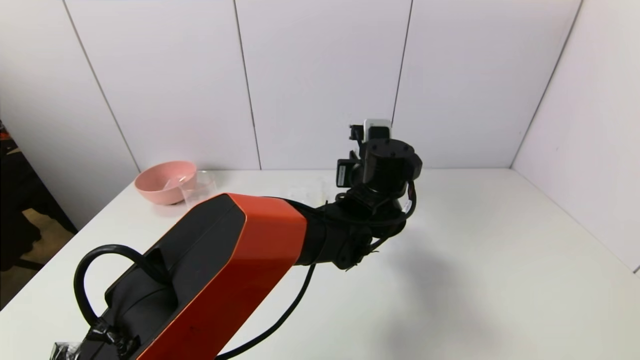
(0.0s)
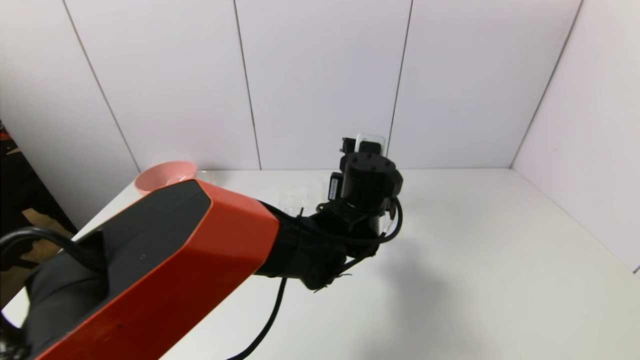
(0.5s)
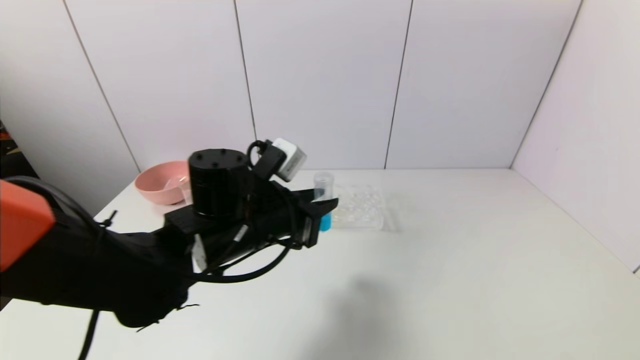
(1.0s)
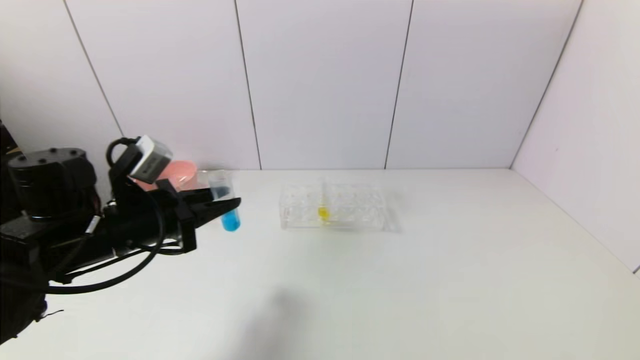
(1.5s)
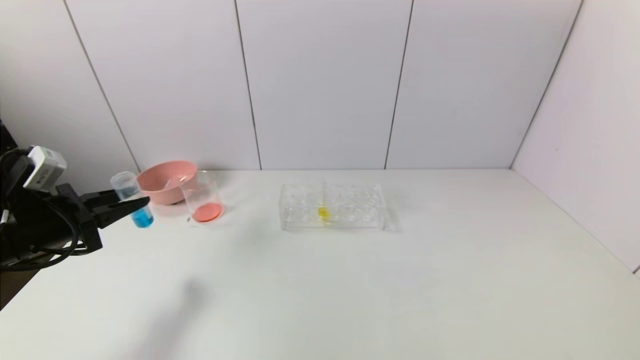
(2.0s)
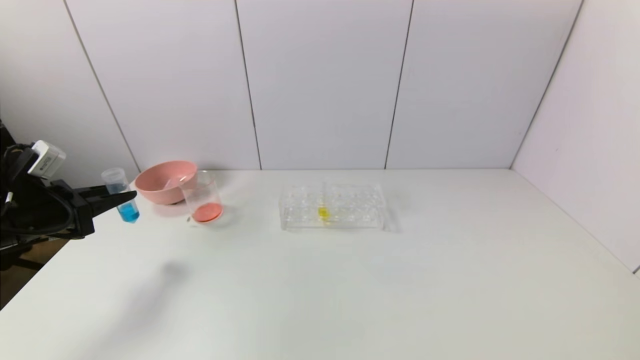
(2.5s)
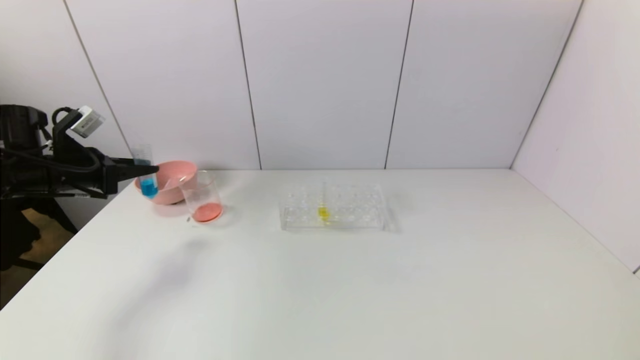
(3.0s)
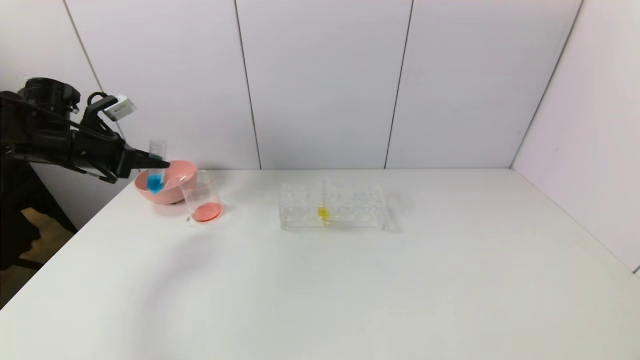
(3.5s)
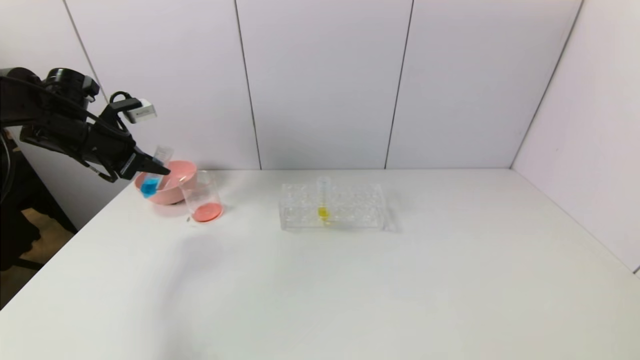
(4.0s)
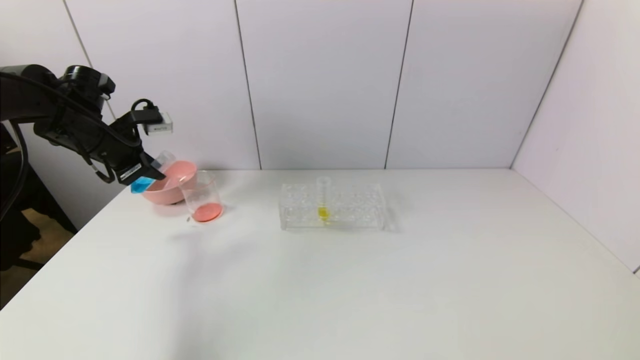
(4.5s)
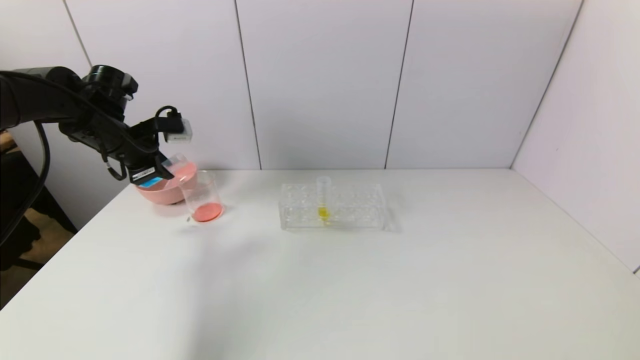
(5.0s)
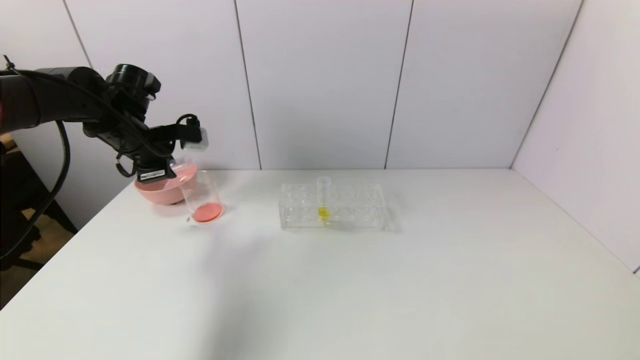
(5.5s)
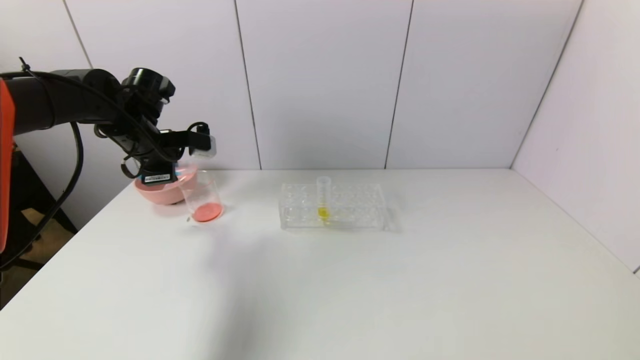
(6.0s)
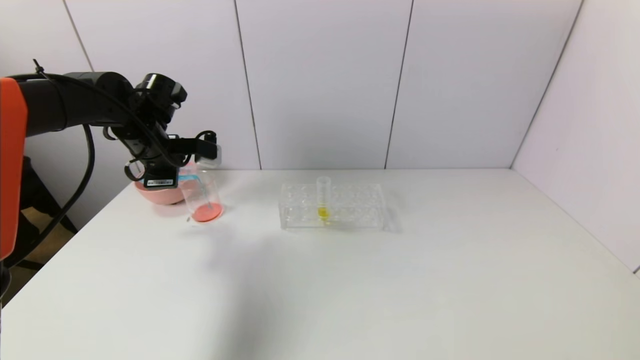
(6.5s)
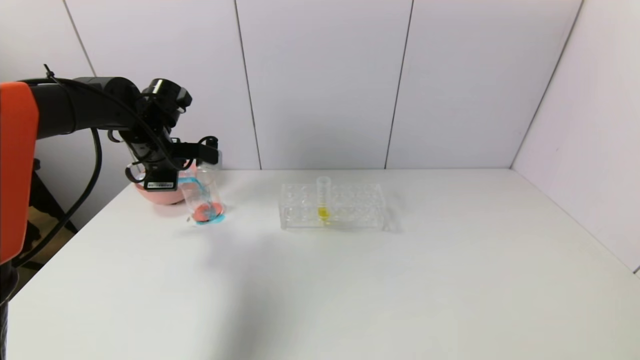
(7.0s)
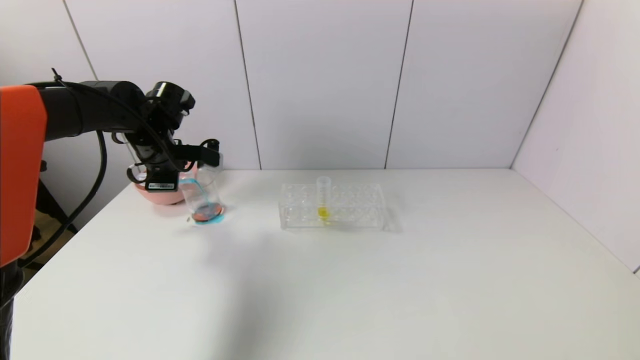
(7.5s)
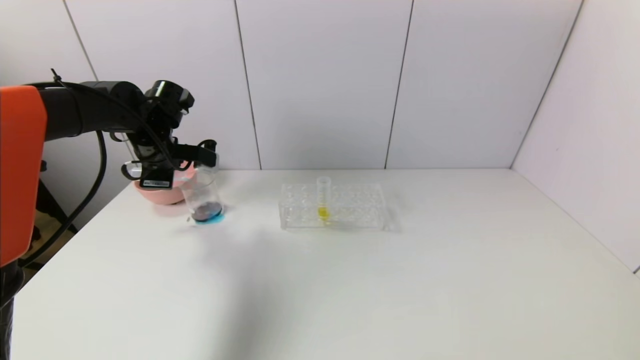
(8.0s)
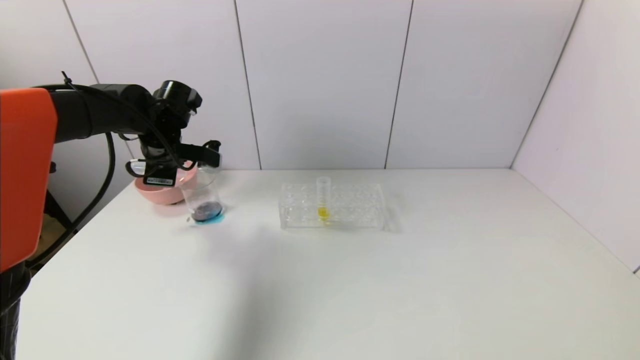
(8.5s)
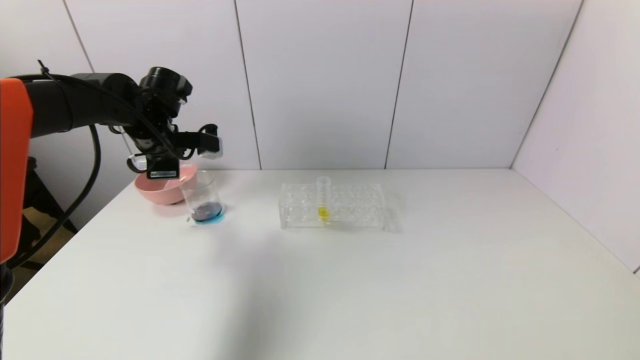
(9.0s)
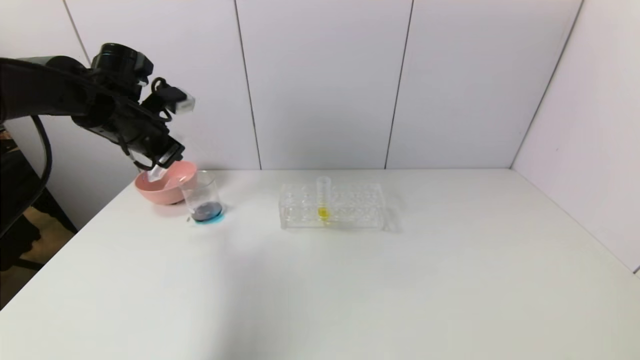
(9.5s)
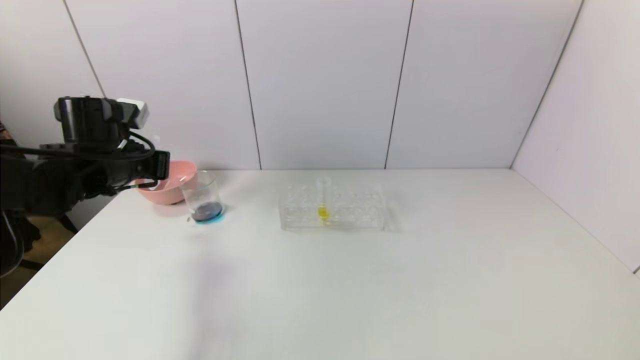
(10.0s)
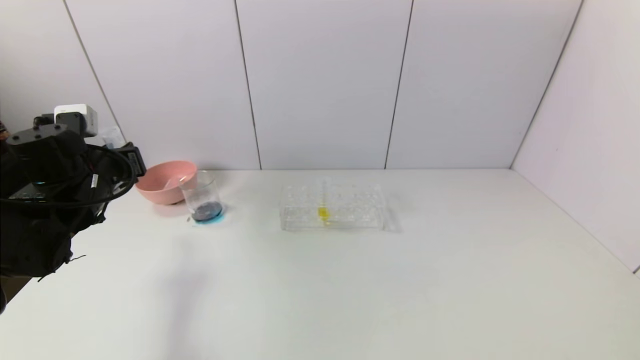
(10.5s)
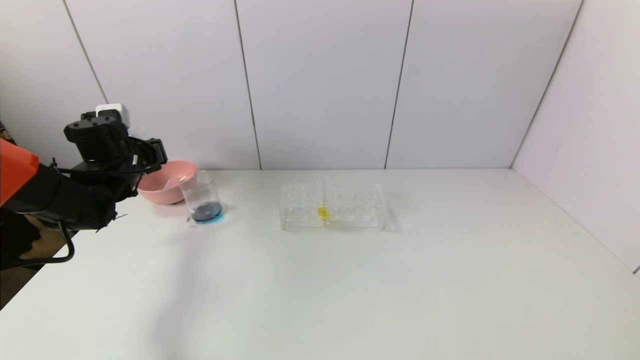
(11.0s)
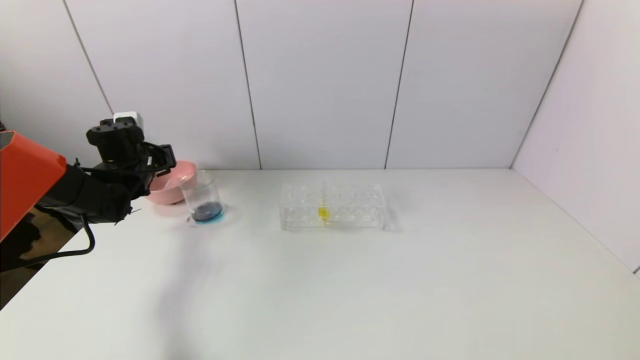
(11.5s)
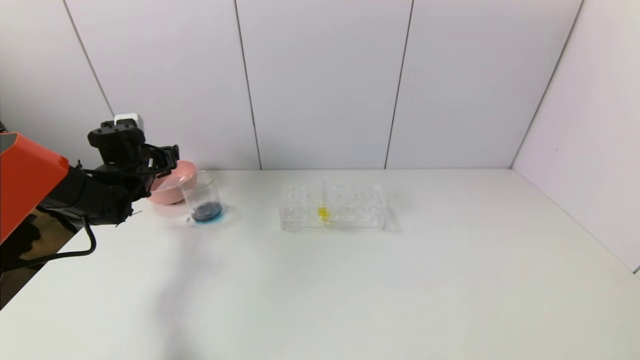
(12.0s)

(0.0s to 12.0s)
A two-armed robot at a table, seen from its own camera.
Task of the whole recording: pick up the test tube with red pigment and the test tube with blue pigment by grippers and pour them into the container.
Step, 0.0s - 9.0s: Pour the blue reagent into the graduated cylinder with the left gripper.
Step, 9.5s - 11.5s: Place the test tube into the bowl with the left gripper.
0.0s - 2.0s: The left gripper is displaced to the left by approximately 50 cm.
2.0s - 4.0s: The left gripper moves forward and upward, approximately 15 cm.
4.0s - 6.0s: The left gripper moves to the right, about 10 cm.
6.0s - 8.0s: There are only small adjustments of the grippers.
8.0s - 10.0s: The left gripper goes some 5 cm backward.
10.0s - 12.0s: The left gripper shifts roughly 10 cm forward and downward, and opens up.

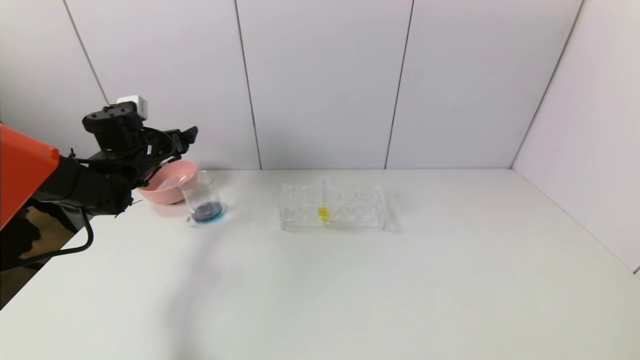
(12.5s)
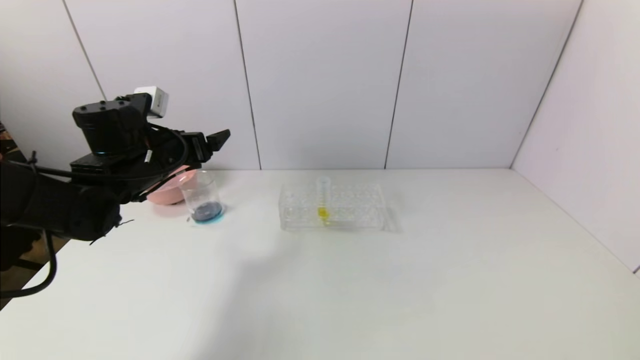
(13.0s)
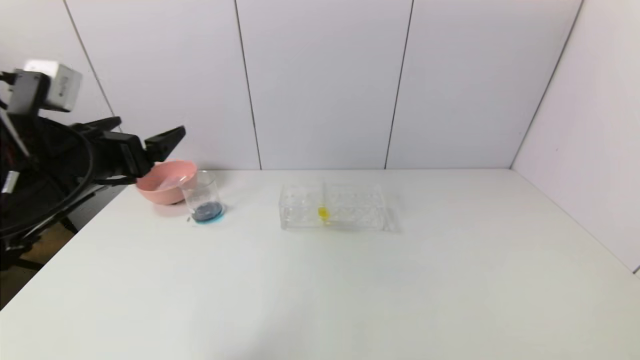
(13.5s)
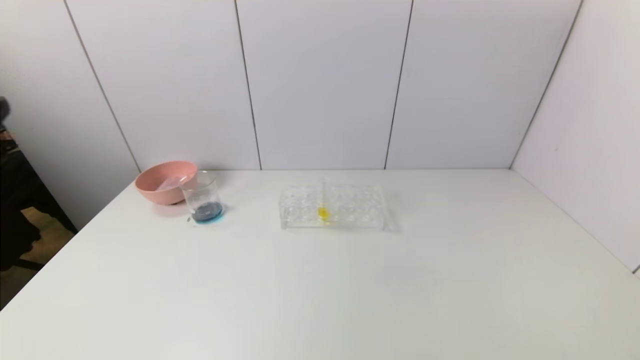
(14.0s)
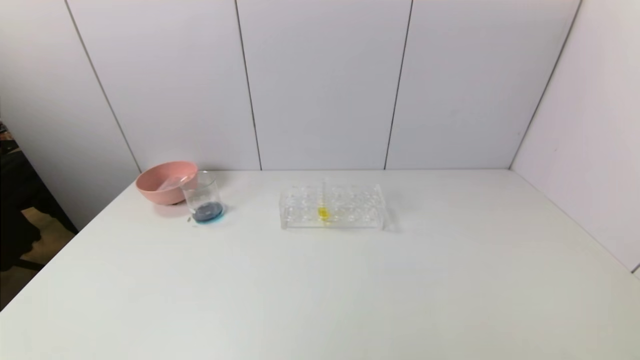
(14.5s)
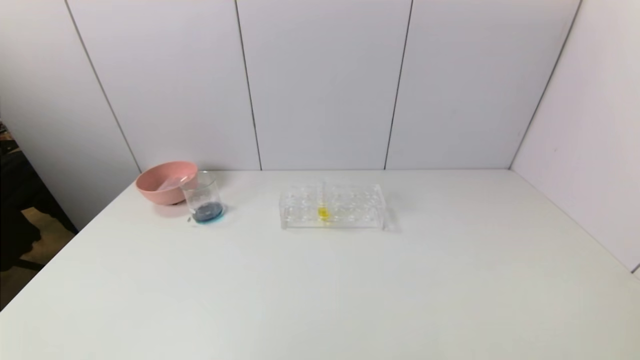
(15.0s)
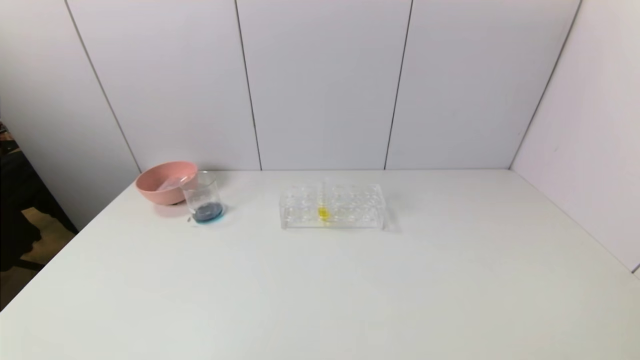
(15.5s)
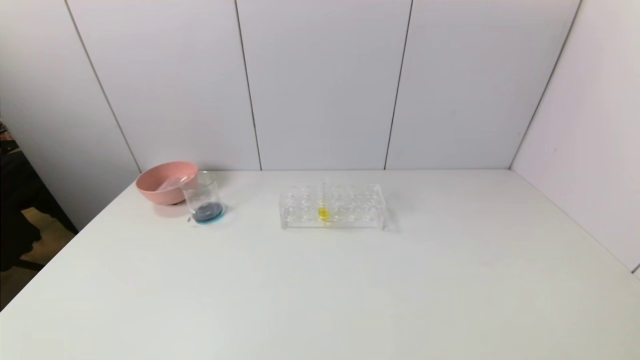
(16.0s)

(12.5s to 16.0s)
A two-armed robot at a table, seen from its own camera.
Task of the whole recording: pick up the test tube with red pigment and the test tube with blue pigment by grippers and pour them into the container.
12.5s - 14.5s: The left gripper travels backward by some 50 cm.
